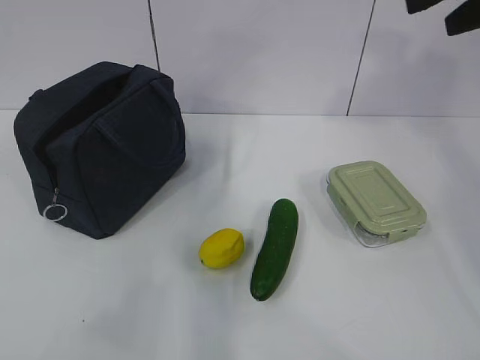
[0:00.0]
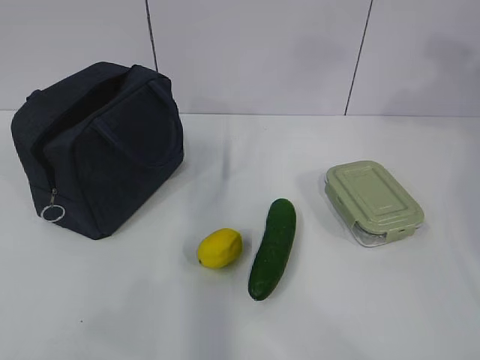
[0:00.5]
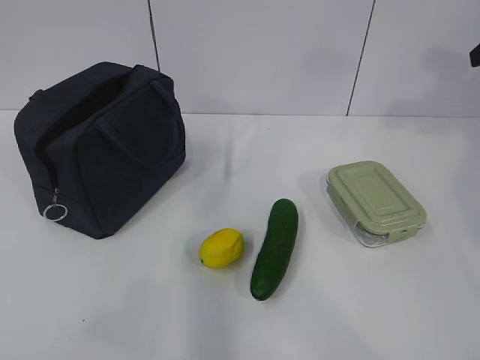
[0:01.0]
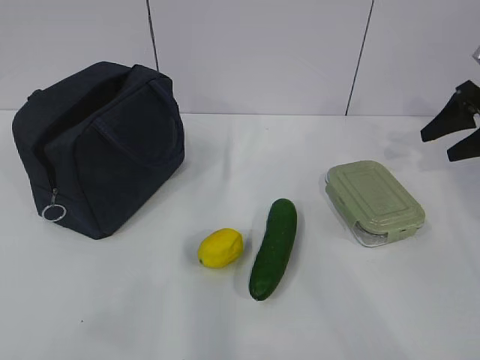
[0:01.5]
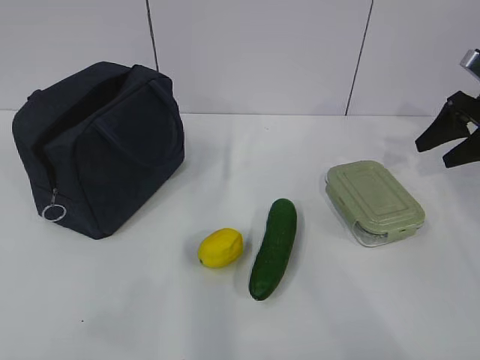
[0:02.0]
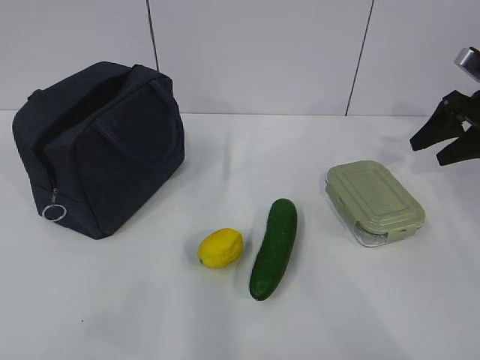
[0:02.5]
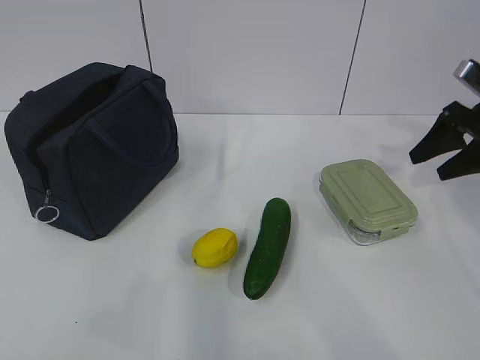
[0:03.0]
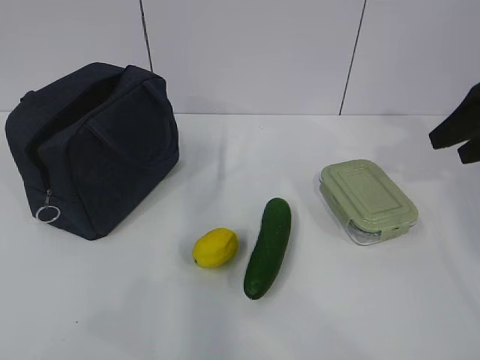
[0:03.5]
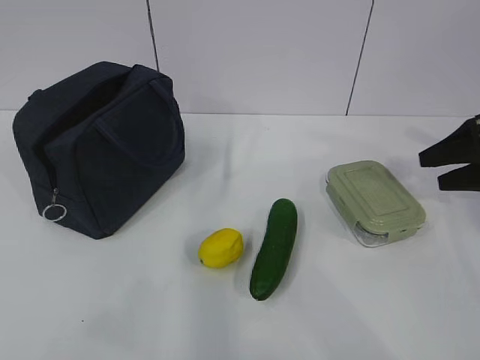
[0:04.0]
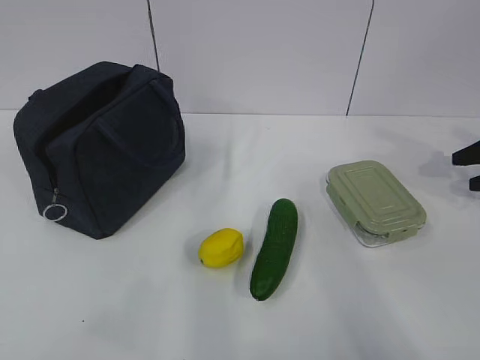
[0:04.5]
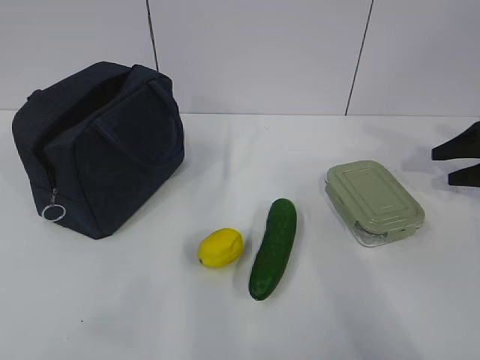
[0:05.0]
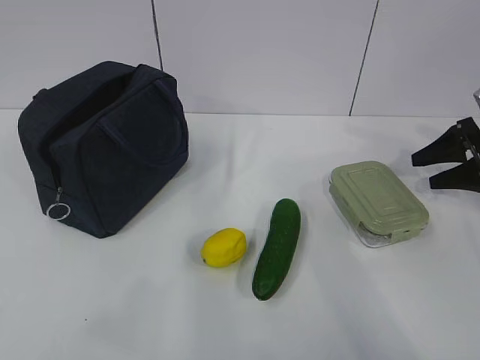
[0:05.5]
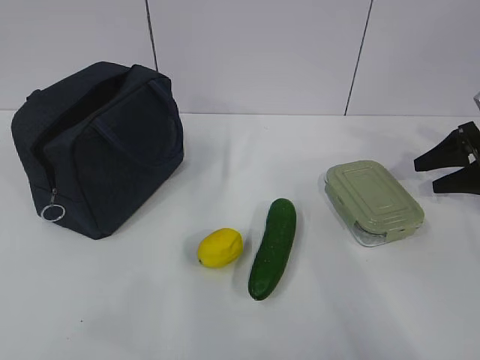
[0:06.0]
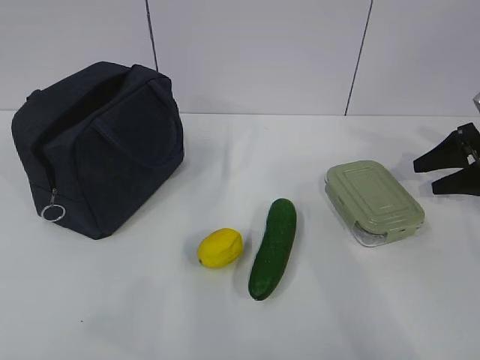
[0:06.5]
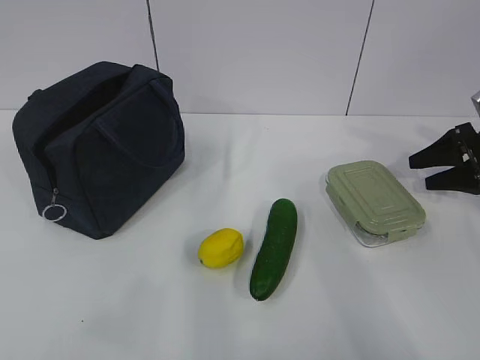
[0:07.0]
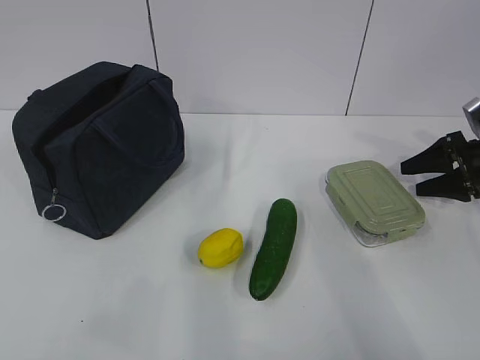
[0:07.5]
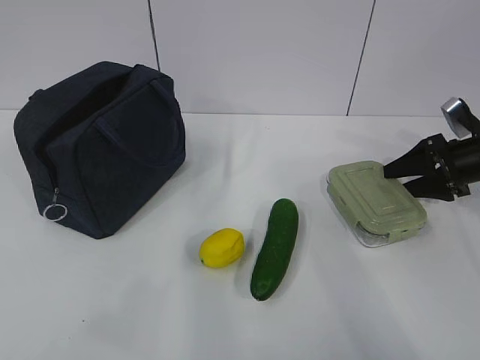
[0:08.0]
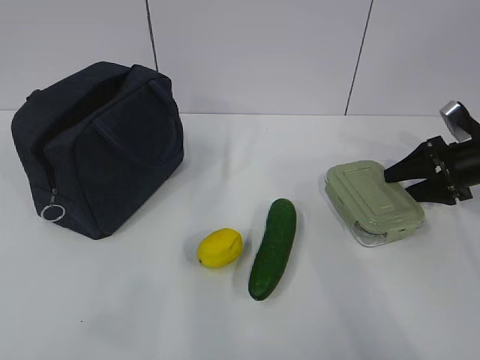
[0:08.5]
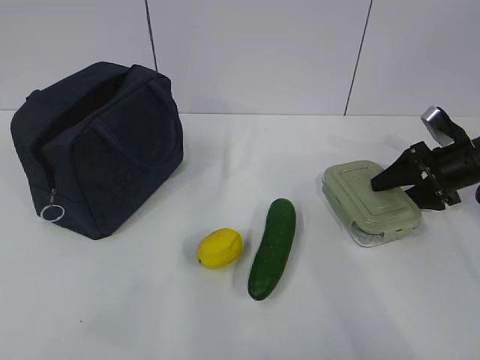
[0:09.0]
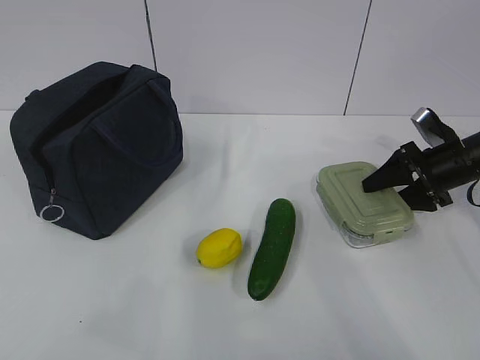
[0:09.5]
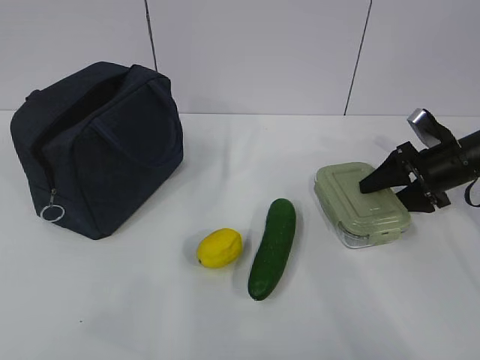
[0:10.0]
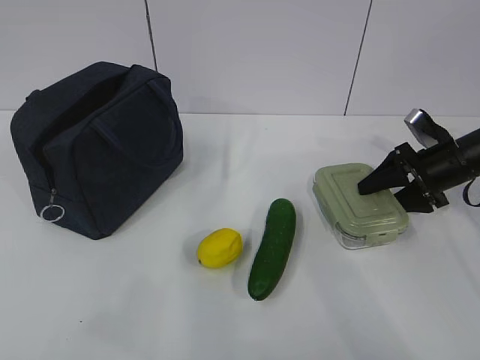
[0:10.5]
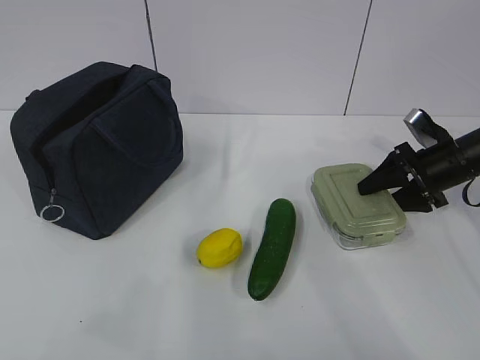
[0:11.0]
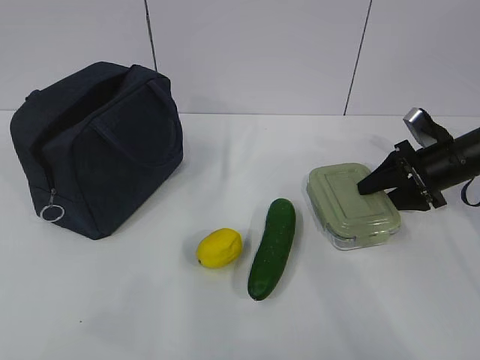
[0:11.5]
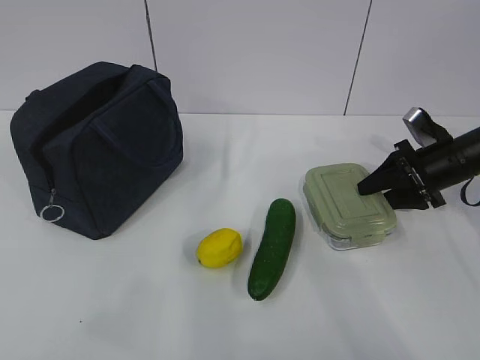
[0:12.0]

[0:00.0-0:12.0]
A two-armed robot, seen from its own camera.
0:00.0 to 0:02.0: The right gripper travels downward, to the right and forward by some 25 cm.
0:02.0 to 0:04.0: The right gripper heads backward, covering some 5 cm.
0:04.0 to 0:06.0: The right gripper travels forward and downward by about 10 cm.
0:06.0 to 0:08.0: The grippers move only a little.
0:08.0 to 0:10.0: The grippers make only small movements.
0:10.0 to 0:12.0: Neither gripper changes place.

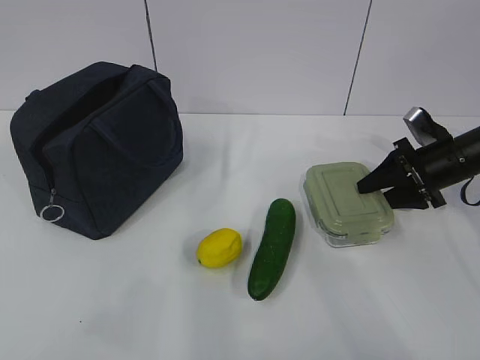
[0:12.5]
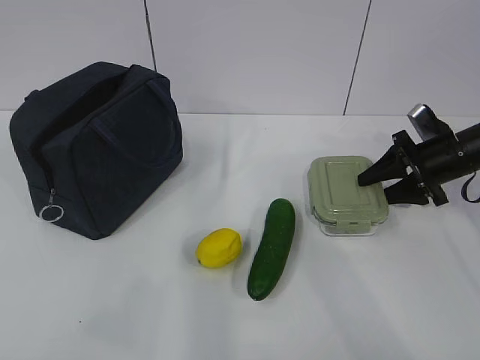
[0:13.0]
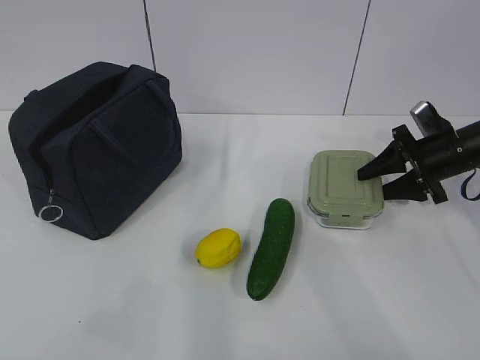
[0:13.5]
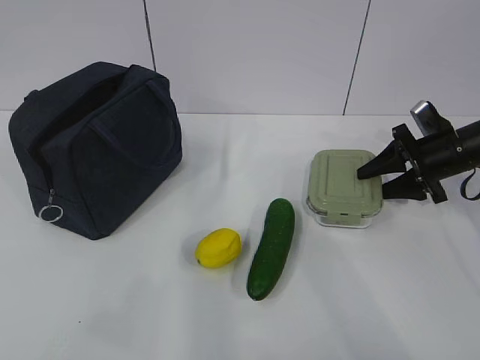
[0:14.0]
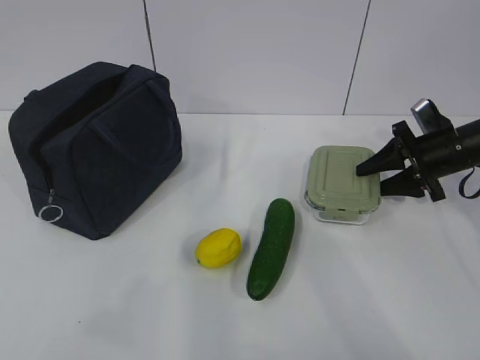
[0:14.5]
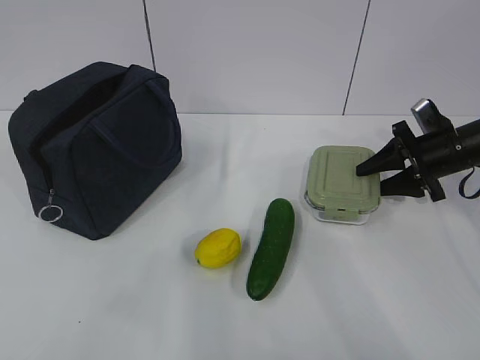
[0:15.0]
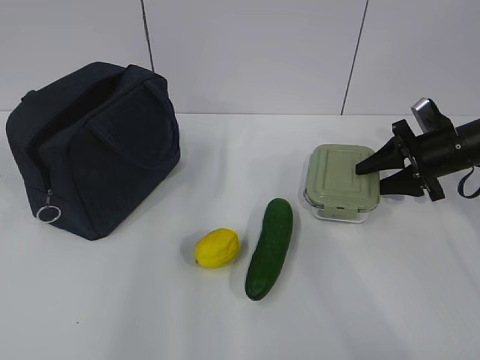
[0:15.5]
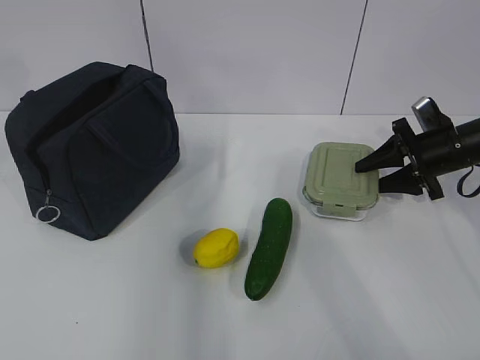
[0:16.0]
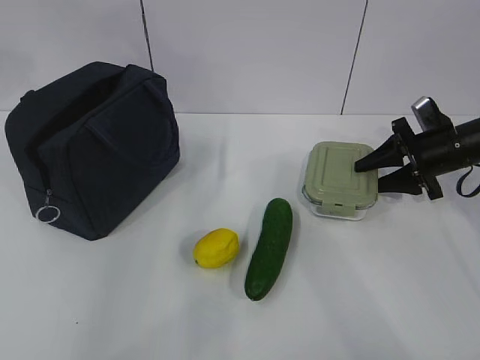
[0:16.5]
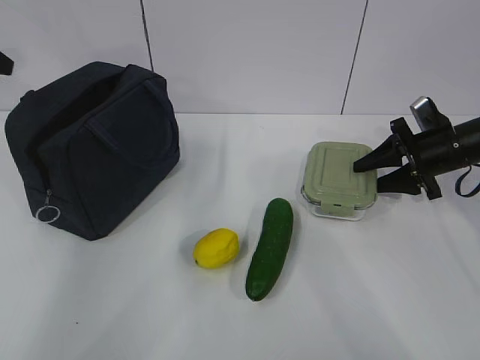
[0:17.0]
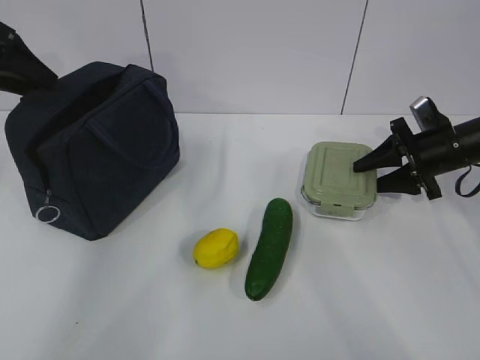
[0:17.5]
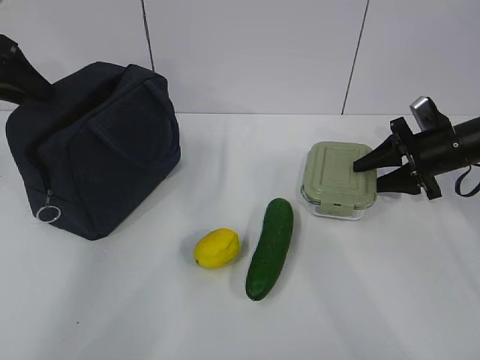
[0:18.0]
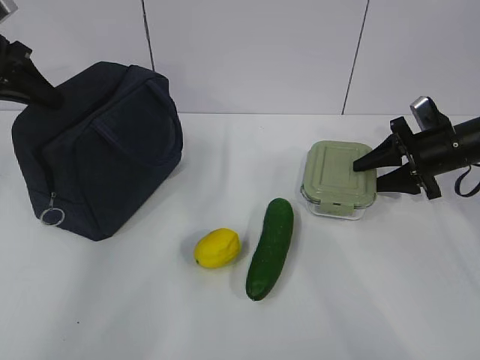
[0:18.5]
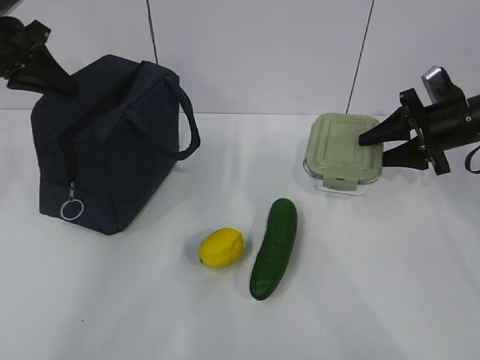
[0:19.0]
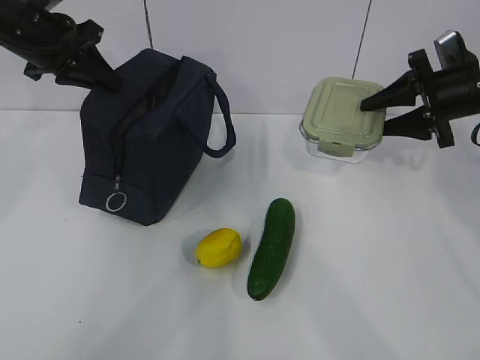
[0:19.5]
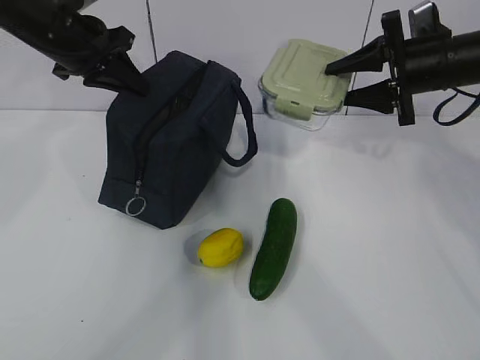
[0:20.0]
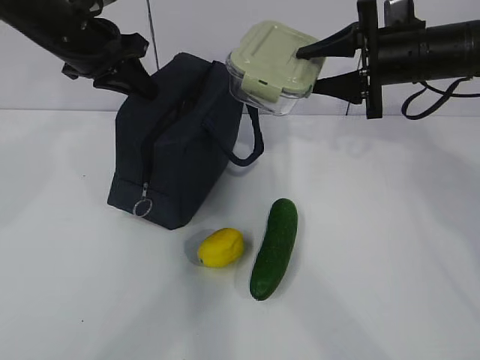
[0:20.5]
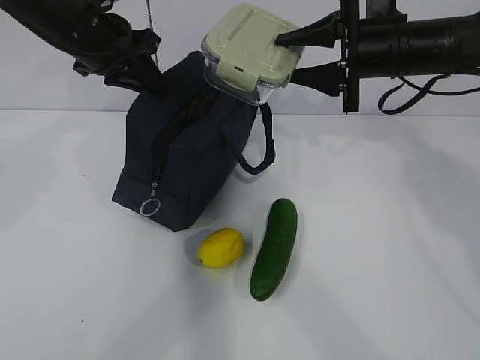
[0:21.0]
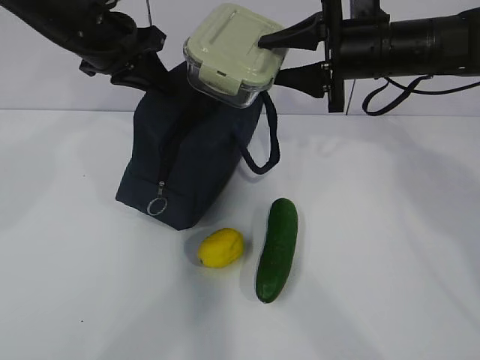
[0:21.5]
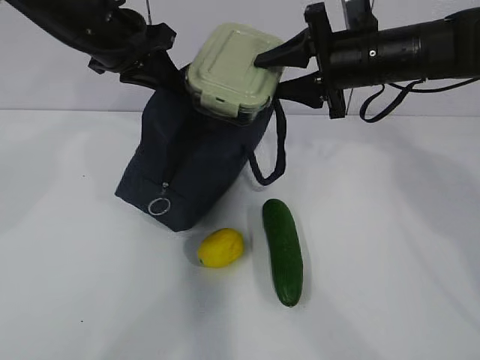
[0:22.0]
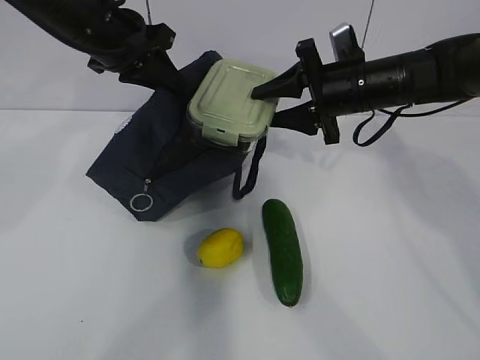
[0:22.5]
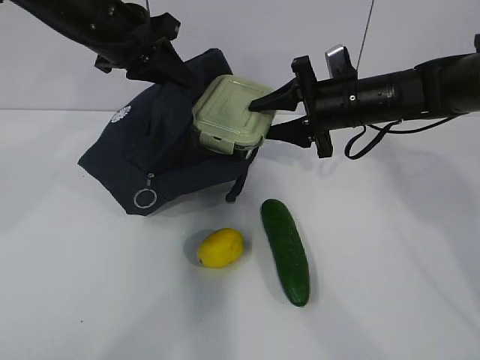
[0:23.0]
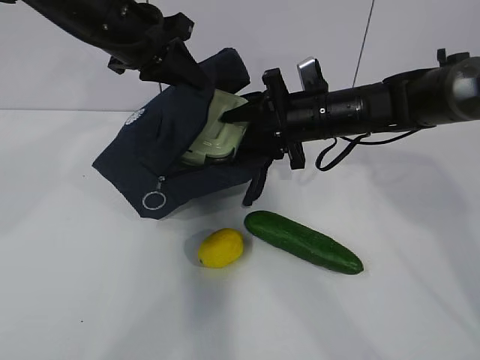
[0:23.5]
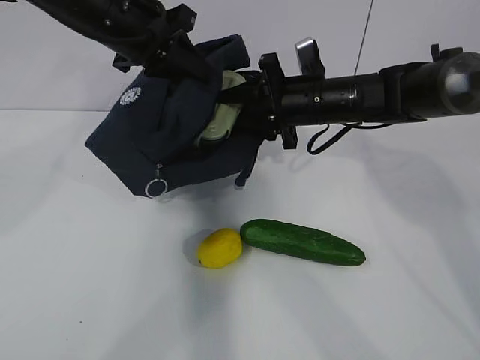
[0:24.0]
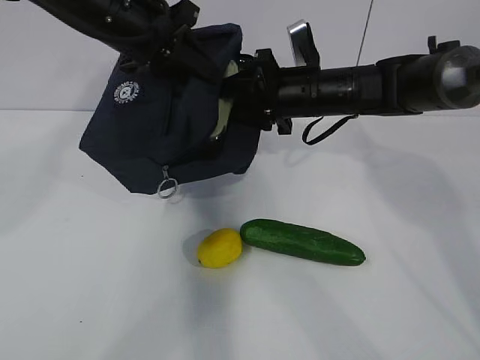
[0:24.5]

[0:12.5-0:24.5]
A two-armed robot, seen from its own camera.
Step, 0:15.0 to 0:17.0: Grab the lunch bag with your left hand.
Step, 0:17.5 to 0:20.0: Place it into the bag with your right hand.
0:12.5 to 0:14.5: The grippers move only a little.
0:14.5 to 0:16.5: The left gripper travels forward by approximately 35 cm.
0:16.5 to 0:18.5: The left gripper travels downward, to the right and forward by some 15 cm, and closes.
0:18.5 to 0:20.5: The left gripper shifts roughly 15 cm to the right; the right gripper is displaced upward and to the left by about 15 cm.
0:20.5 to 0:22.5: The right gripper goes roughly 5 cm to the left.
0:22.5 to 0:24.5: The right gripper heads to the left, covering about 5 cm.

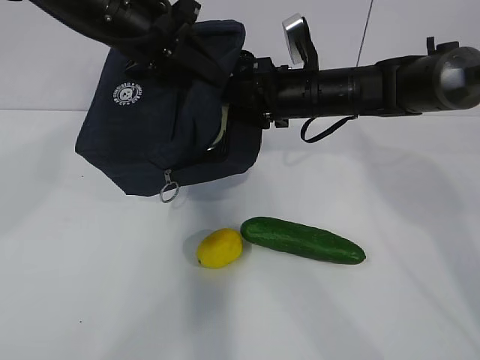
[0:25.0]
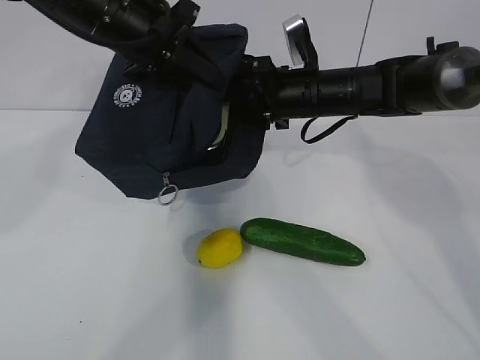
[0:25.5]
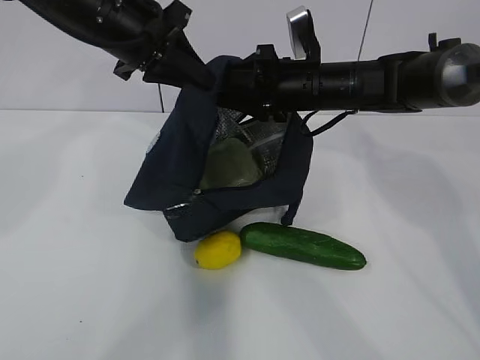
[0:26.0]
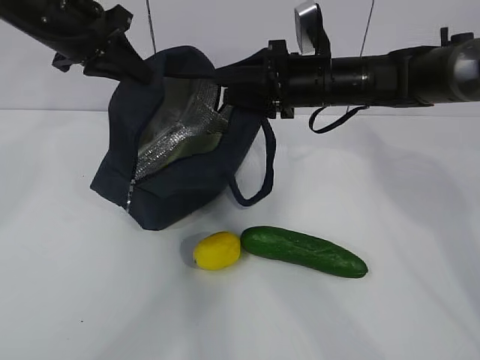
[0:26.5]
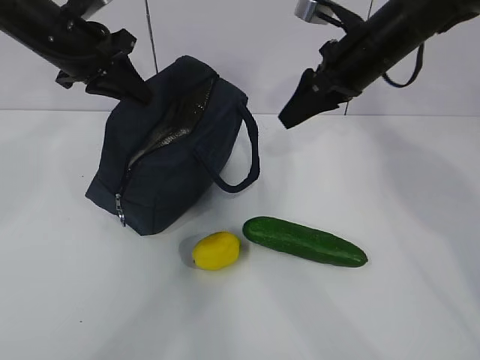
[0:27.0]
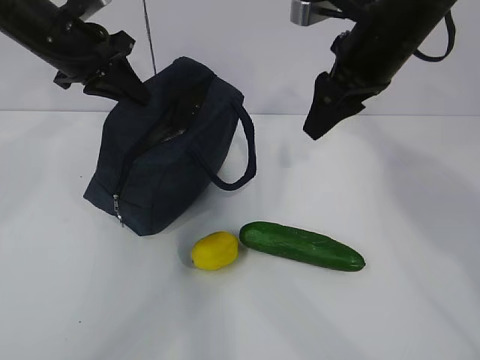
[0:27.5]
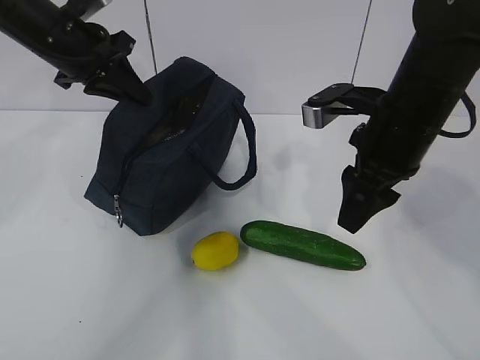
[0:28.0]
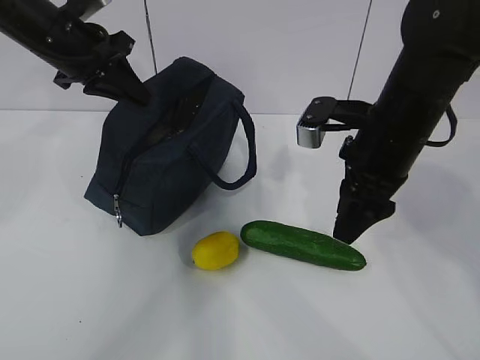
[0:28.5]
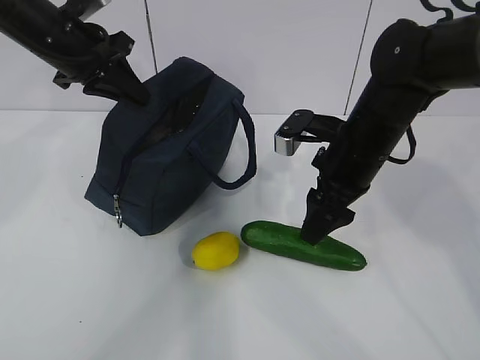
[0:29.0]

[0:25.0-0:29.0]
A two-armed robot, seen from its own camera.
Step, 0:25.5 to 0:28.5: Place it into the bag with your right hand.
0:25.0 to 0:27.0: The left gripper shifts about 10 cm to the left; the right gripper is displaced upward and to the right by roughly 10 cm.
0:27.0 to 0:29.0: The right gripper is displaced downward and backward by roughly 10 cm.
